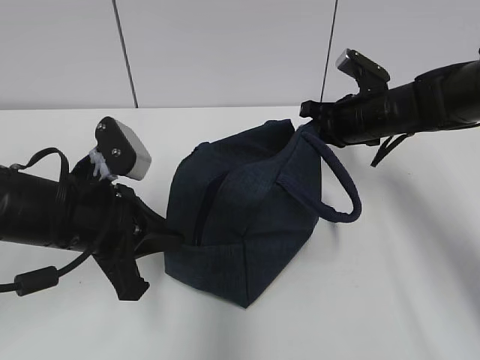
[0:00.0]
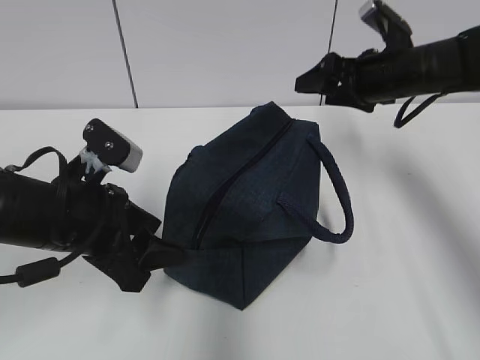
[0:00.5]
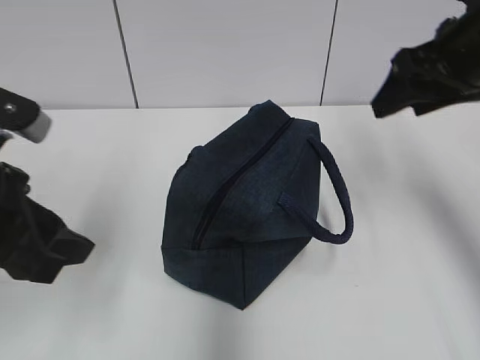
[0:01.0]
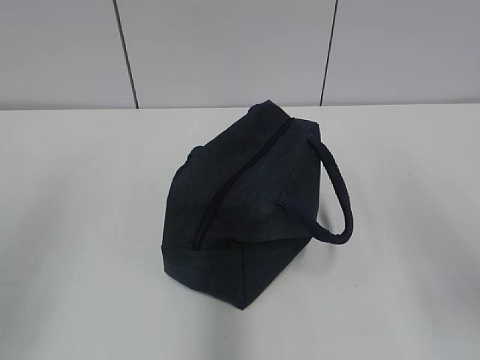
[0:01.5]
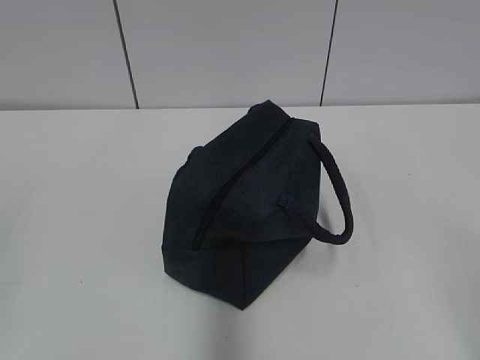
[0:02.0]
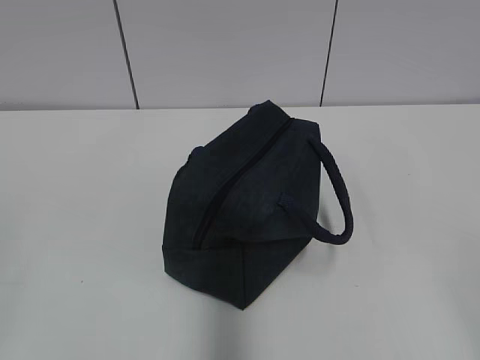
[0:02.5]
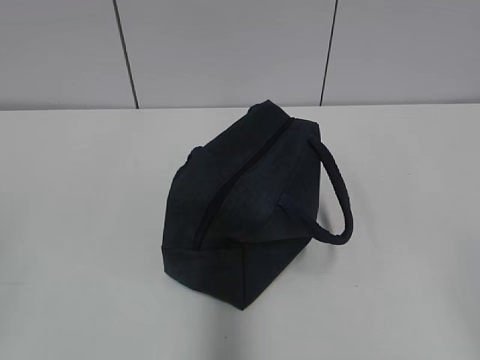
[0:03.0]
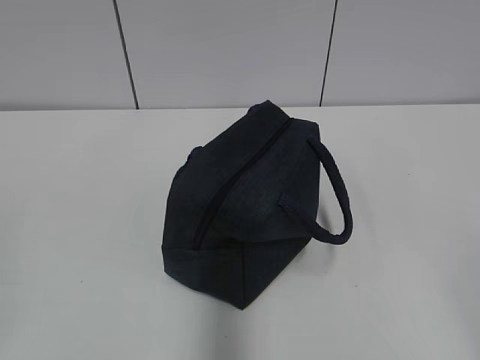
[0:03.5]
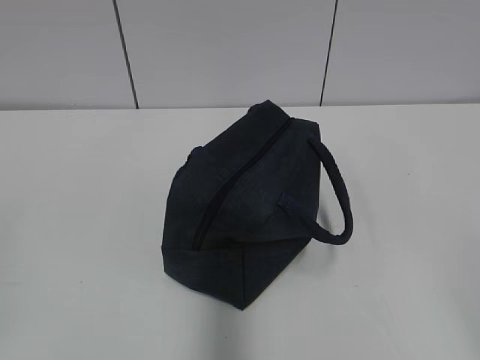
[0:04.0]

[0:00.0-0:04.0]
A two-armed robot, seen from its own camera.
0:00.0 to 0:02.0: The left gripper moves backward, to the left and upward, some 30 cm, and opens its fingers. Meanwhile the right gripper heads backward, covering about 40 cm, and opens its fingers.
